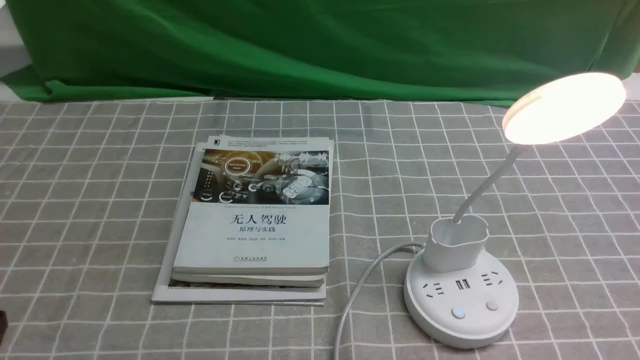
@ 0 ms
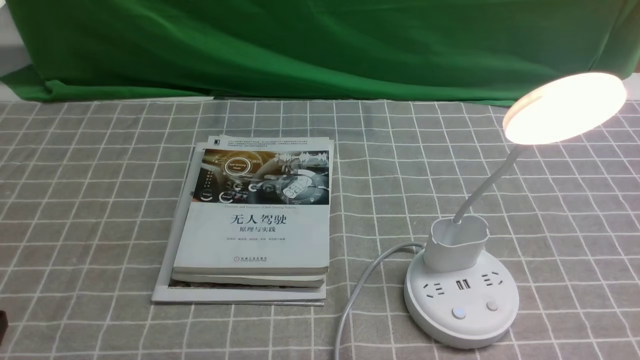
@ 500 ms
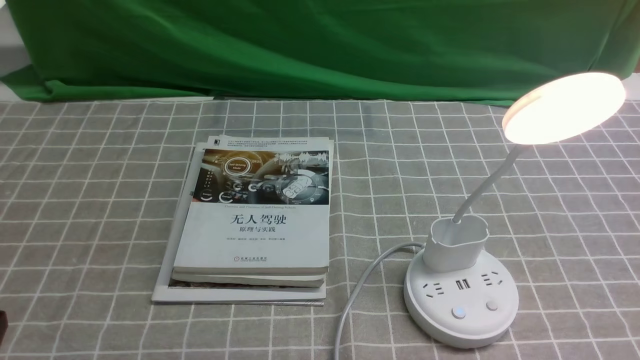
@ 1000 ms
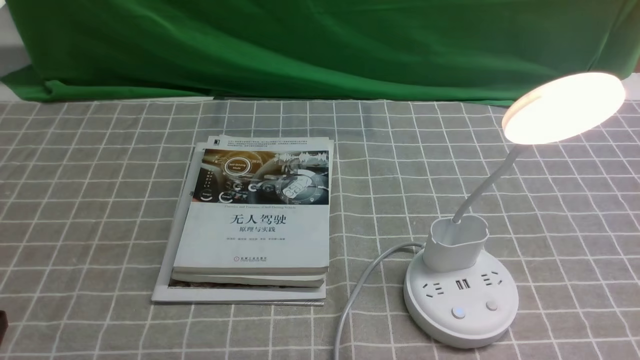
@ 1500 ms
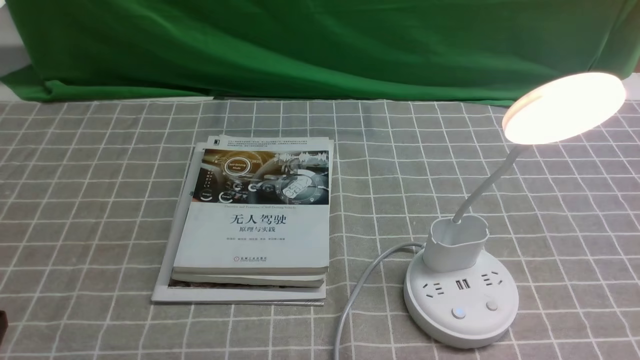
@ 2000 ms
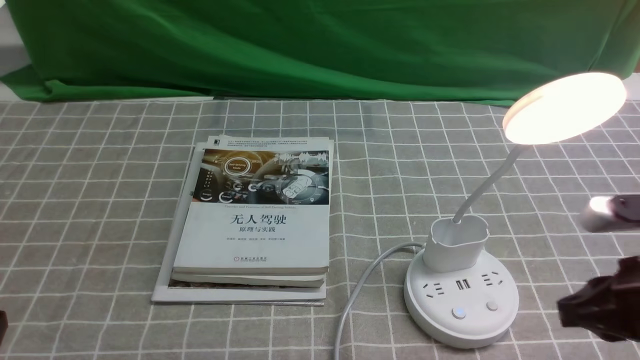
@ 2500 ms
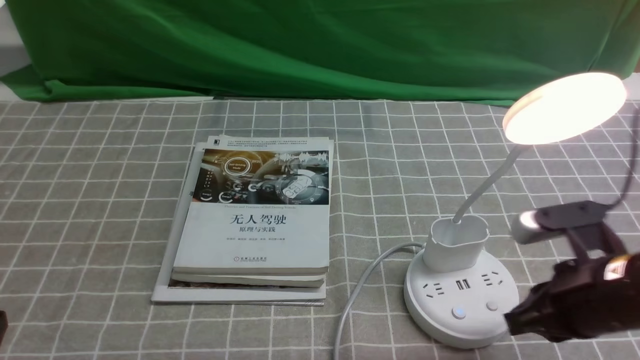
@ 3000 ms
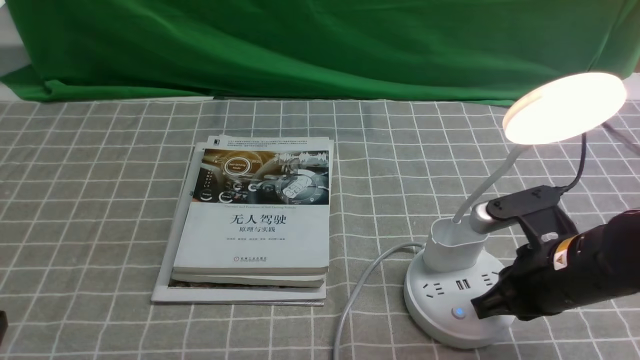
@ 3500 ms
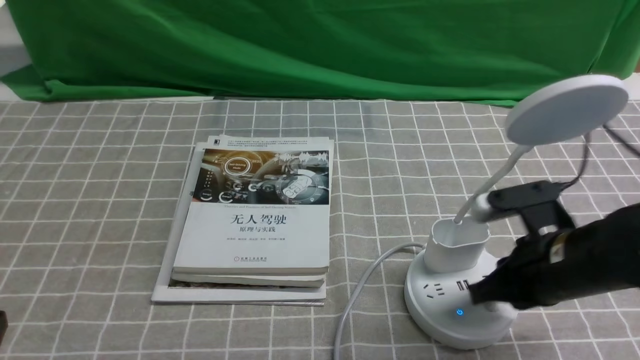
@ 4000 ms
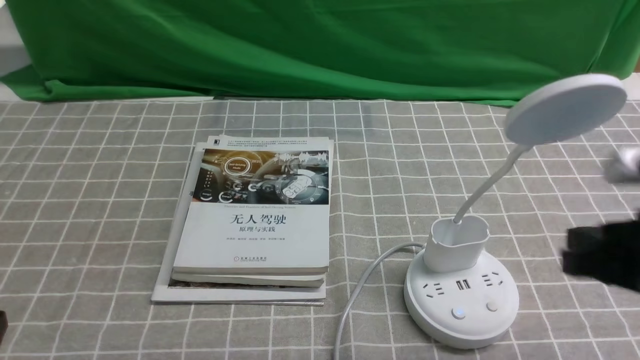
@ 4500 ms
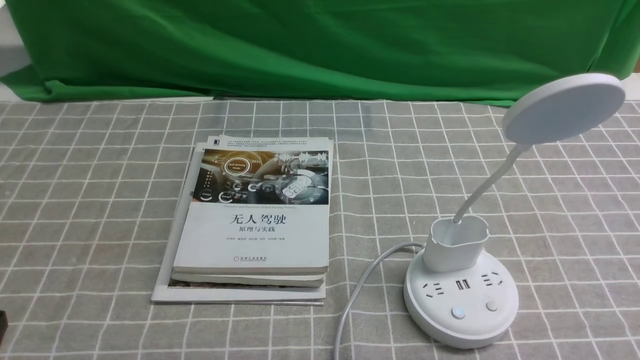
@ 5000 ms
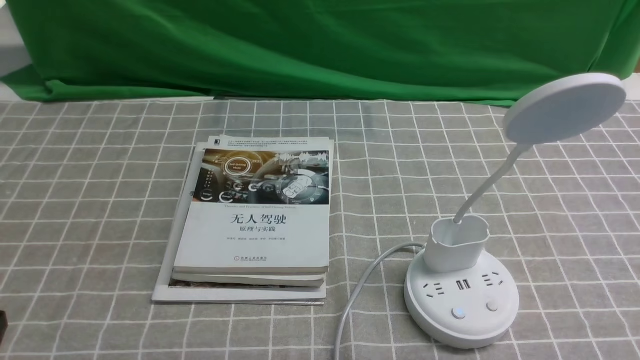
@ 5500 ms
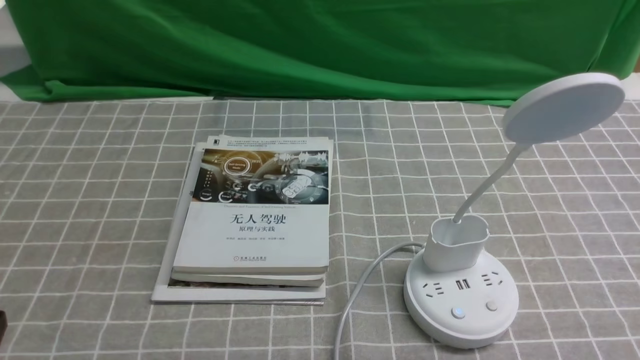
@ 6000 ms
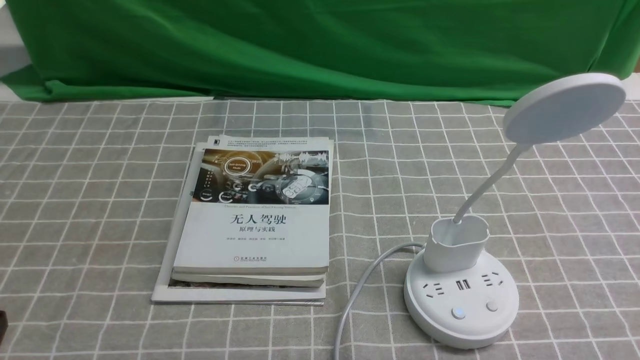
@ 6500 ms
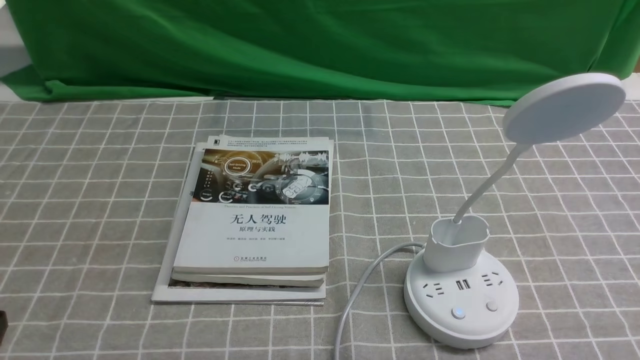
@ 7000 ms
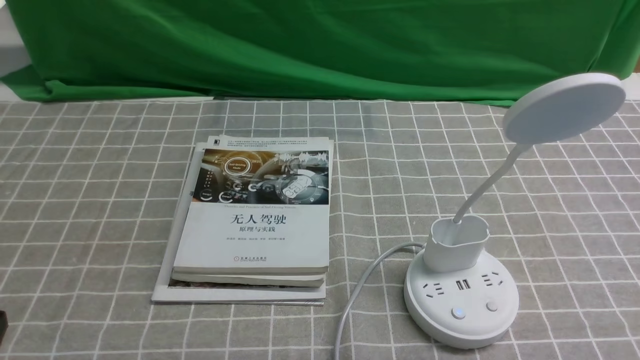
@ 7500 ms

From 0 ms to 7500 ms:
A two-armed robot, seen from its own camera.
Task of the whole recording: turn off the desk lamp on the grey coffee tablecloth by hand.
Step, from 0 ms to 4000 ms: use the right arm to press the button switch on the lamp holder.
From 2000 ms to 4000 ms: The right gripper moves forward, downward and to the left, some 15 cm, and closes.
From 4000 ms to 5500 ms: The right gripper shifts some 20 cm backward and to the right.

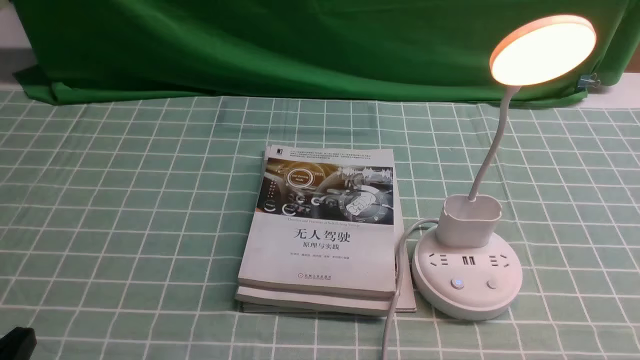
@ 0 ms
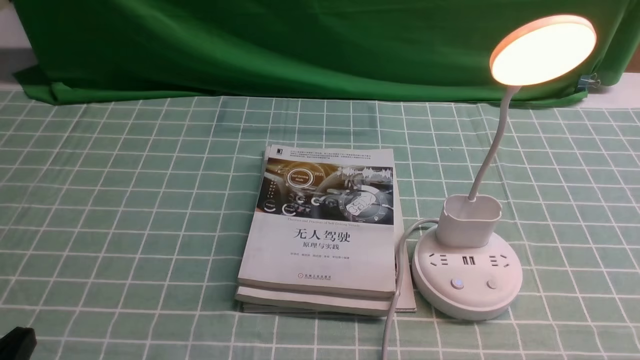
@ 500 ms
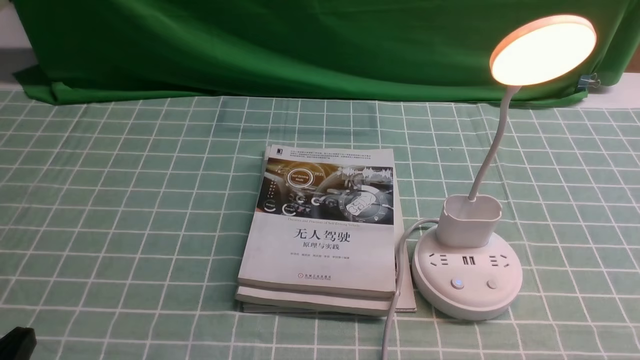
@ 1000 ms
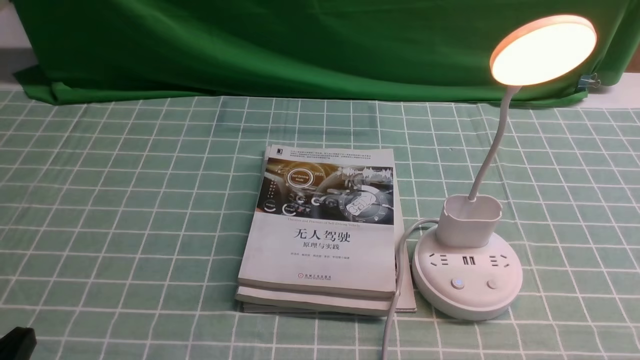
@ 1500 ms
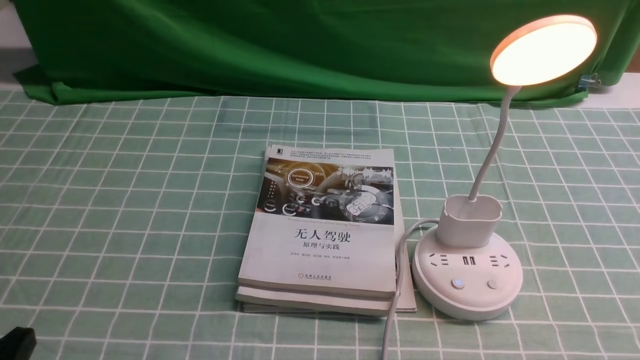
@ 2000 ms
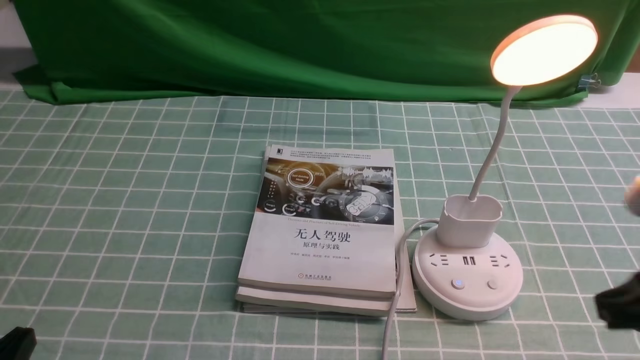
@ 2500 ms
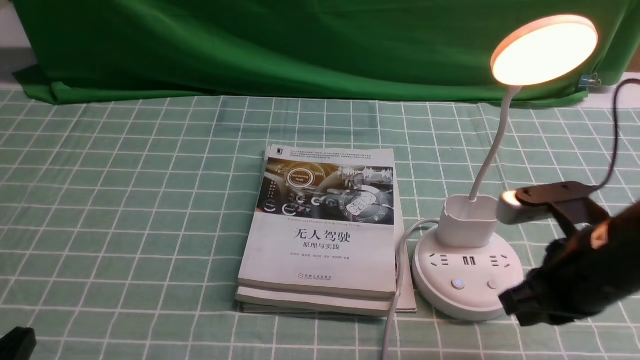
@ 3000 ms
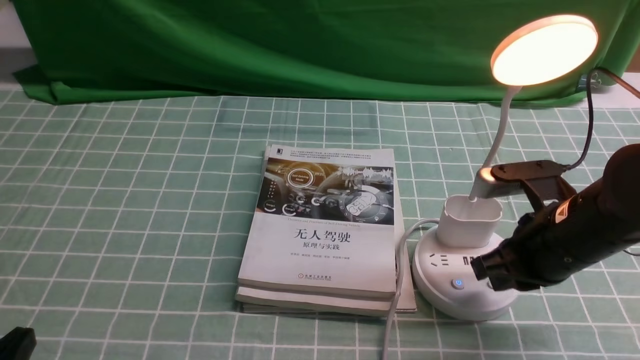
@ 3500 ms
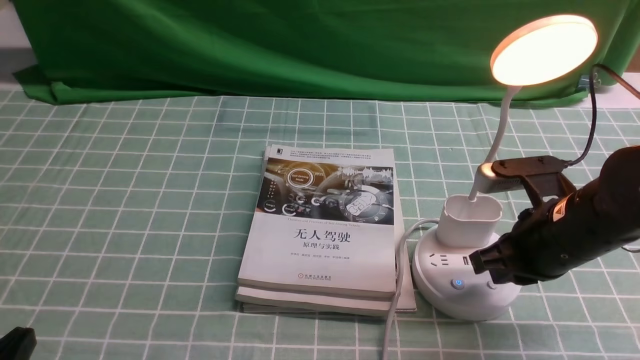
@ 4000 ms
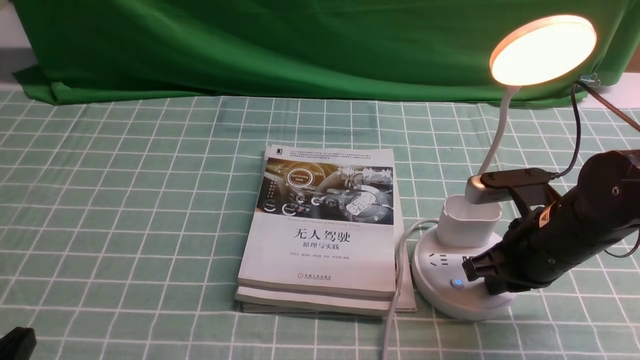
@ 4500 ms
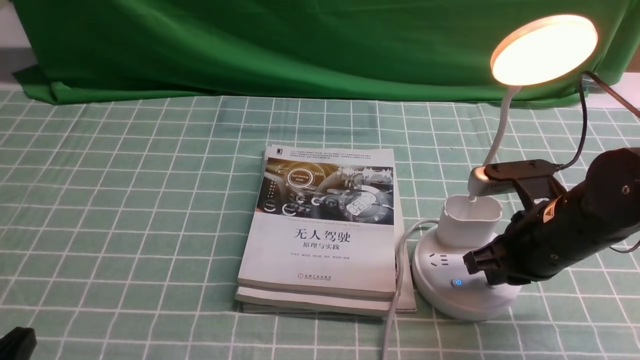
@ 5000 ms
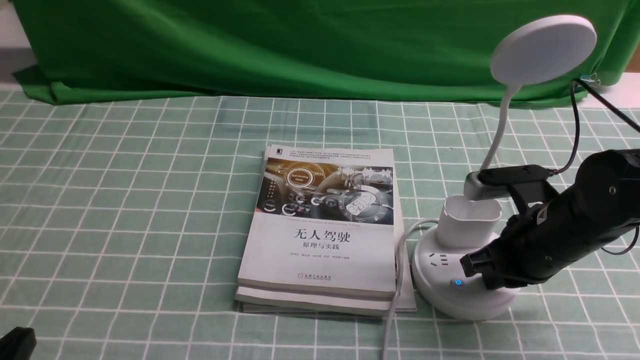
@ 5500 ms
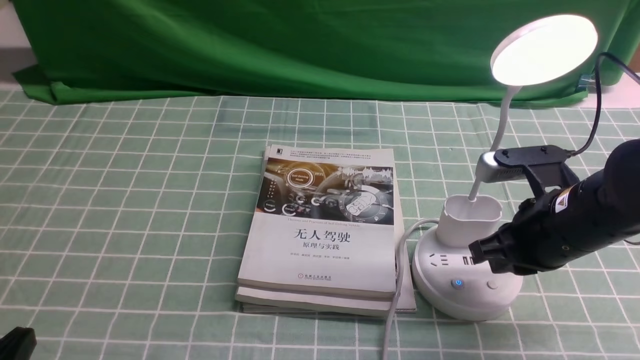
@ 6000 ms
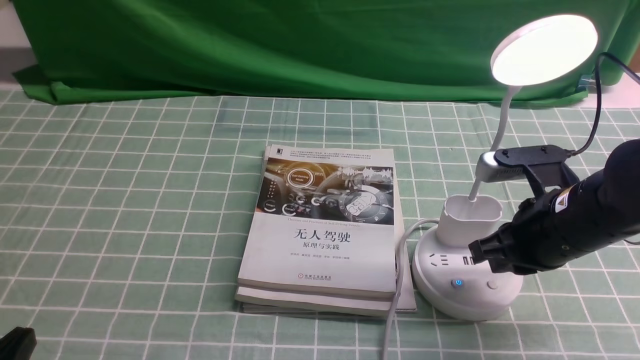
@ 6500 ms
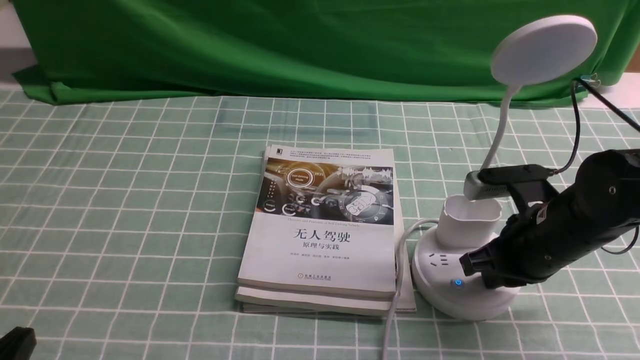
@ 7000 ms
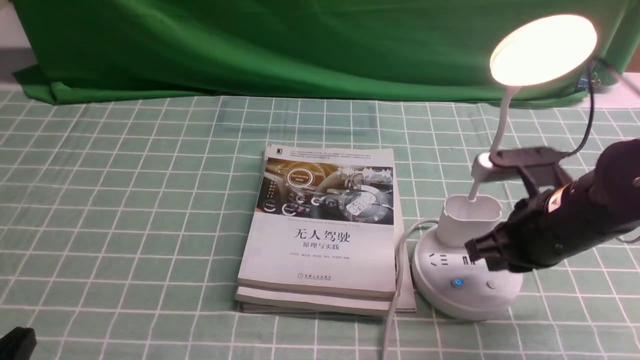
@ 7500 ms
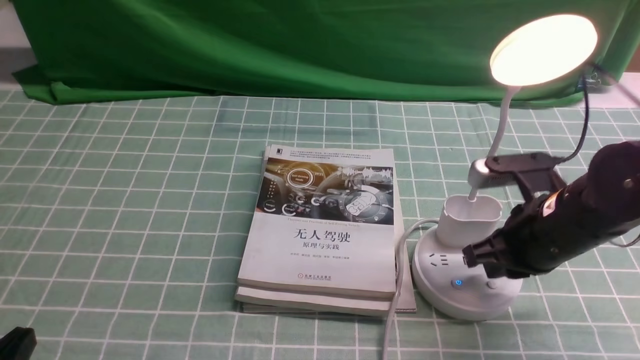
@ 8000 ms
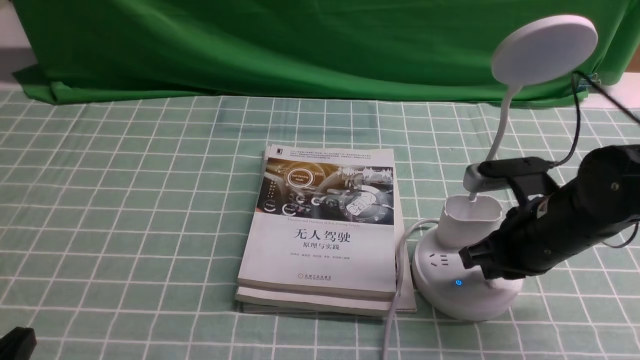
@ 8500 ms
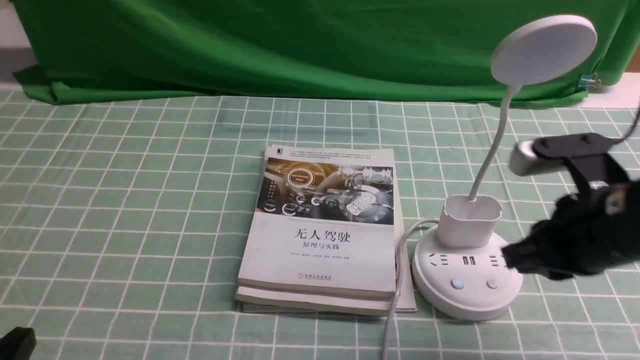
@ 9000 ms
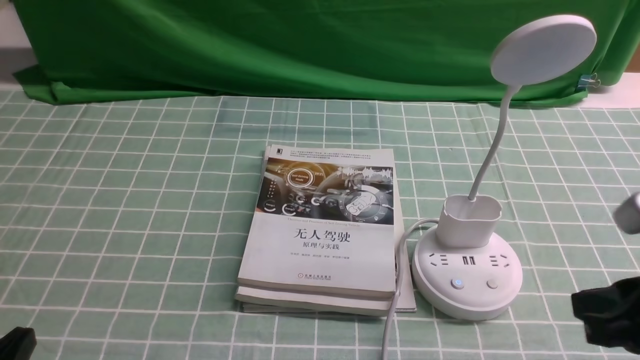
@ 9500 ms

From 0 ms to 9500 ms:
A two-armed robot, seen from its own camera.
Task of the whole recording: turn off the desk lamp on the blue coffee tablecloth by hand.
Step, from 0 ms to 8500 ms: use the right arm to press the button switch on the lamp holder.
From 2000 ms to 4000 ms: The right gripper is displaced forward by approximately 20 cm.
From 4000 ms to 7500 ms: The grippers move only a little.
From 7500 ms to 9500 ms: The right gripper shifts roughly 15 cm backward and upward.

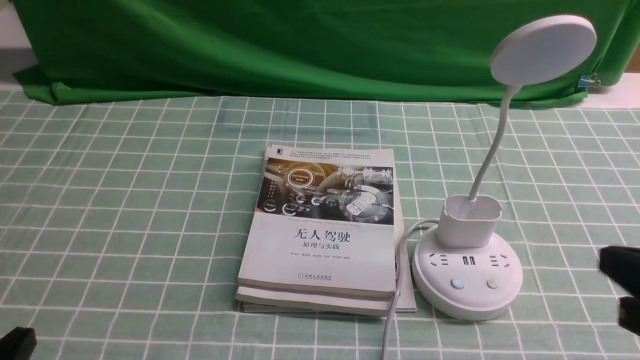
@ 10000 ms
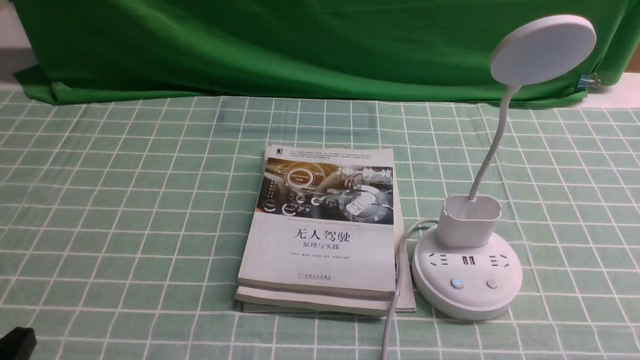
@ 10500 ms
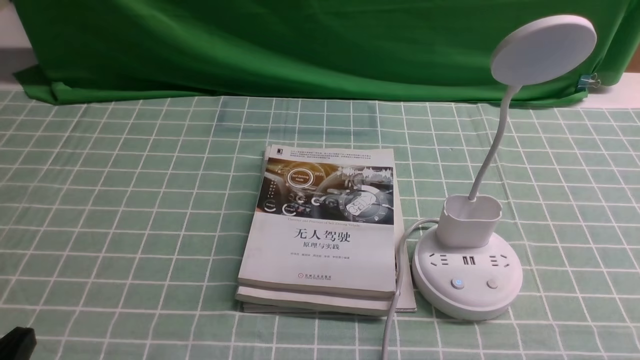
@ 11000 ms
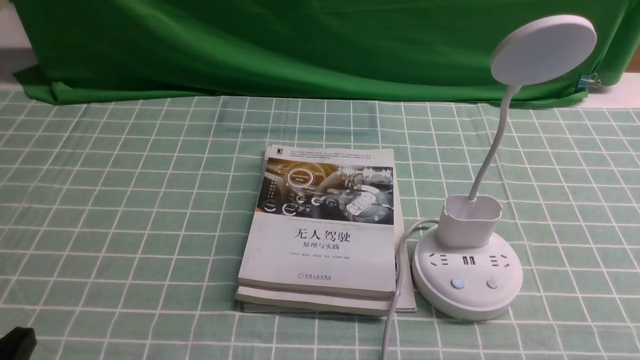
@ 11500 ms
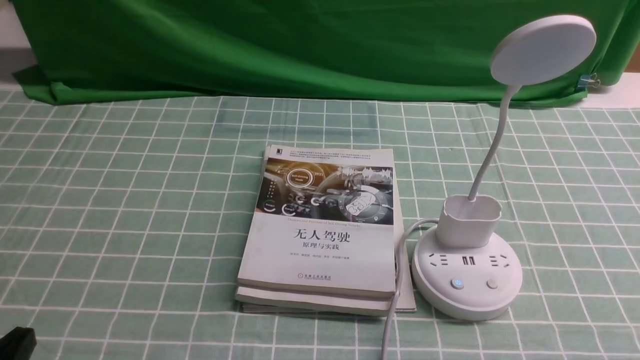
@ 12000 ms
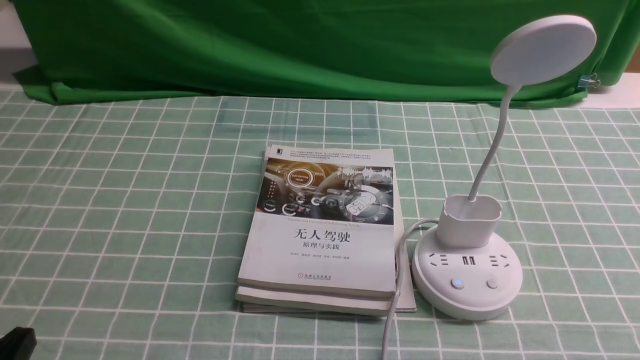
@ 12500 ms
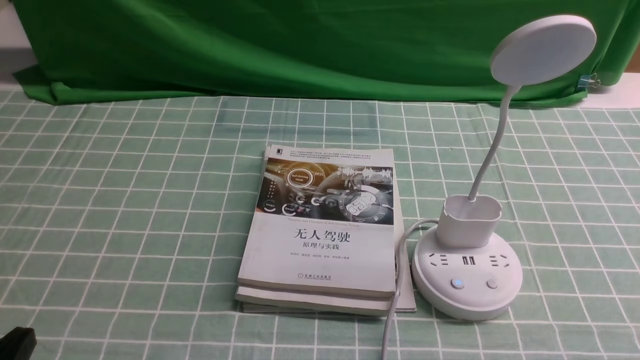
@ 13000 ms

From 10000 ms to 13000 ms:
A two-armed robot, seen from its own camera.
Task of the whole recording: turn off the desk lamp on the blue coffee tablecloth by hand.
From 10000 ms to 11500 ms: The right gripper moves downward and backward, roughly 10 cm.
